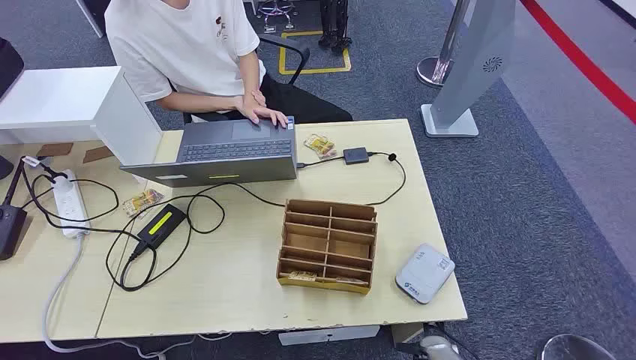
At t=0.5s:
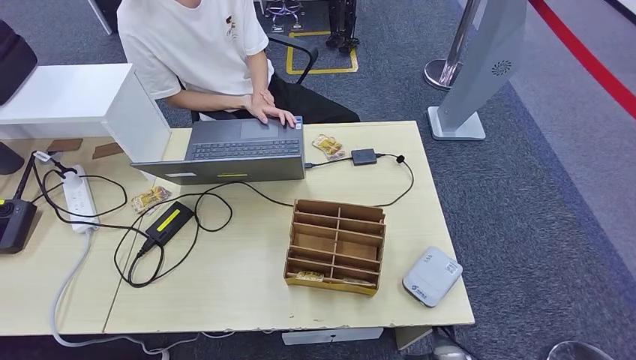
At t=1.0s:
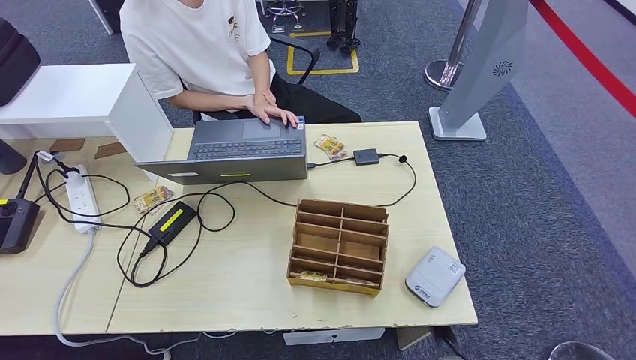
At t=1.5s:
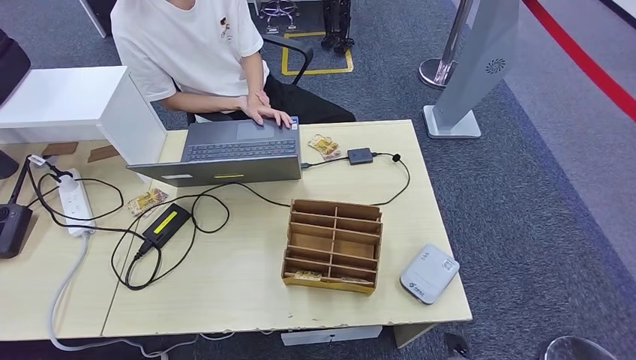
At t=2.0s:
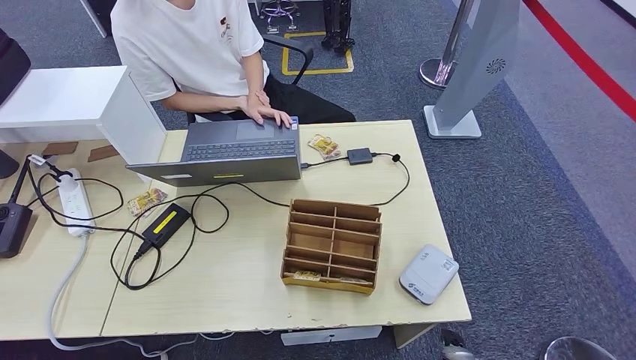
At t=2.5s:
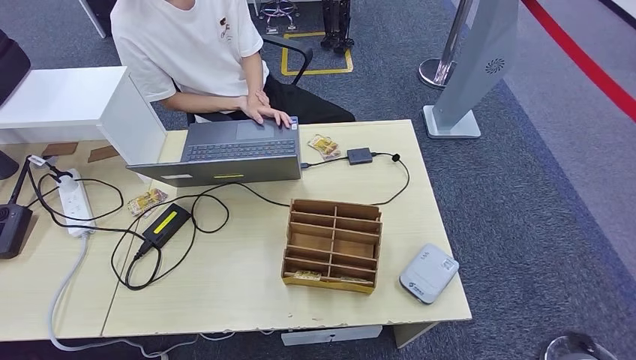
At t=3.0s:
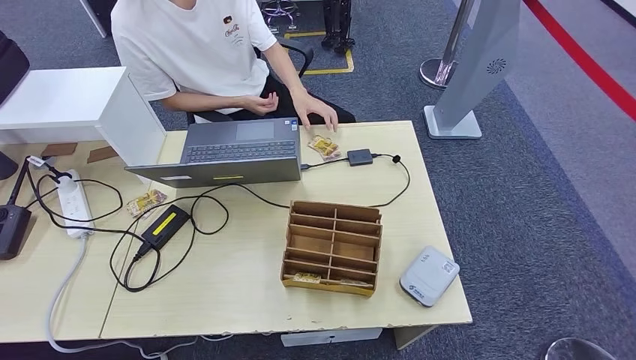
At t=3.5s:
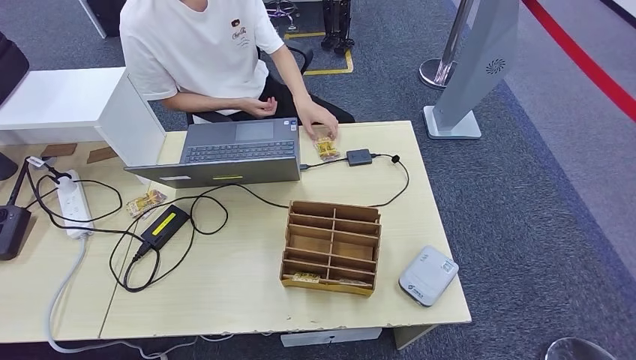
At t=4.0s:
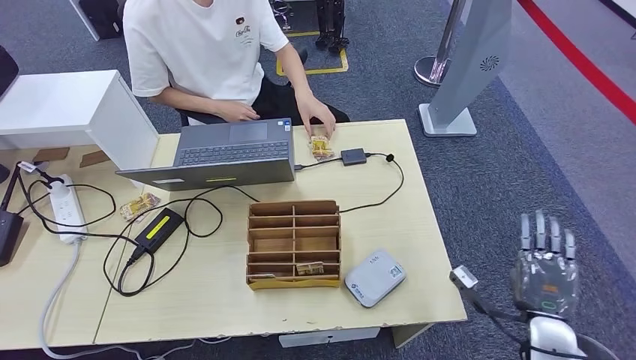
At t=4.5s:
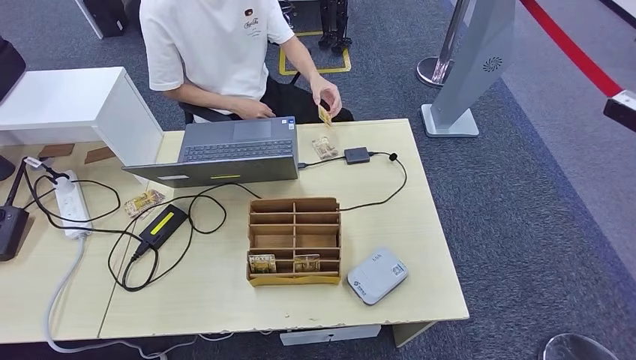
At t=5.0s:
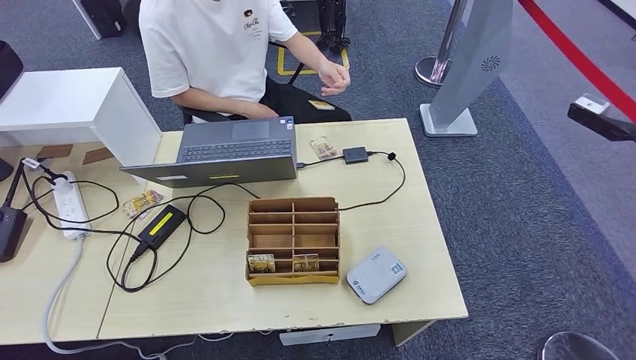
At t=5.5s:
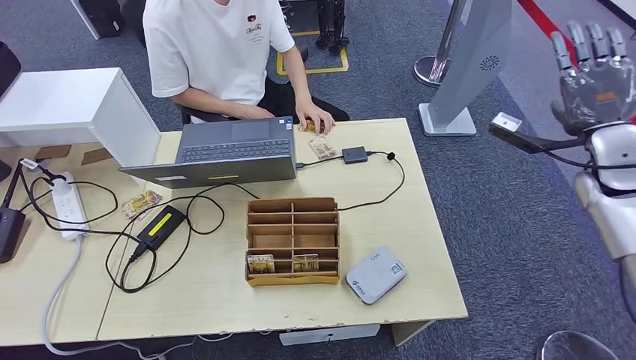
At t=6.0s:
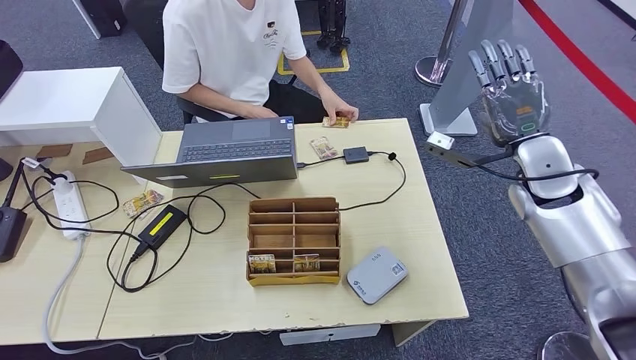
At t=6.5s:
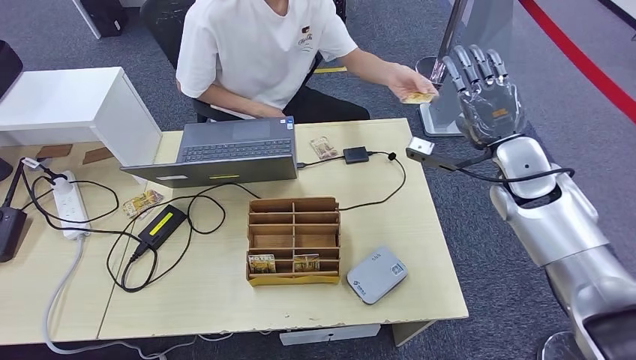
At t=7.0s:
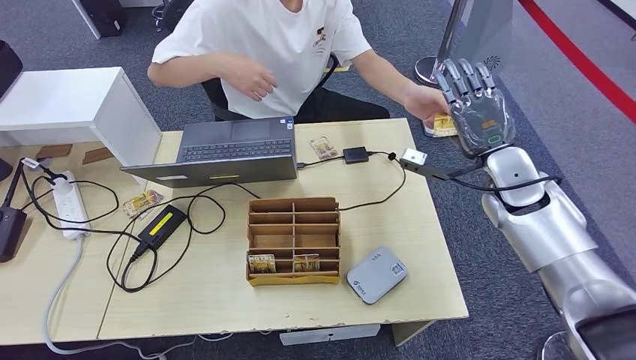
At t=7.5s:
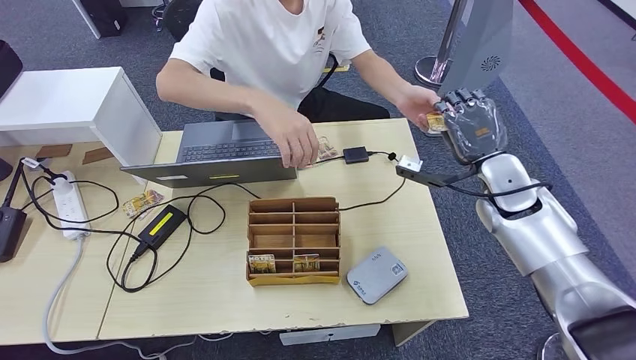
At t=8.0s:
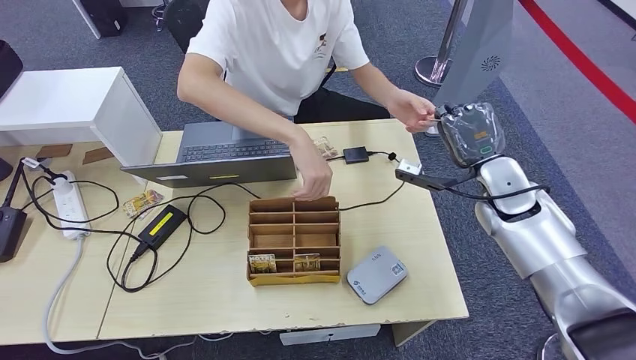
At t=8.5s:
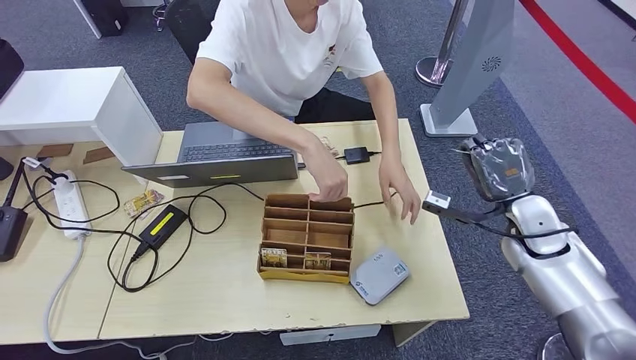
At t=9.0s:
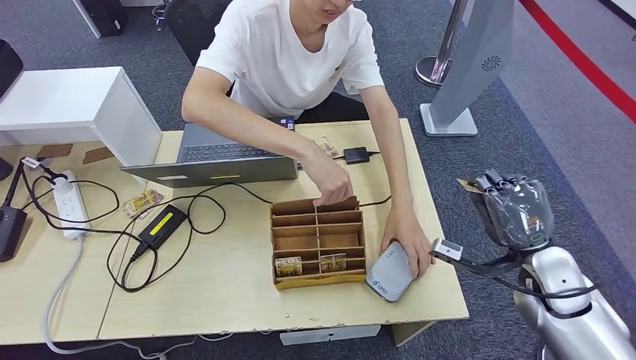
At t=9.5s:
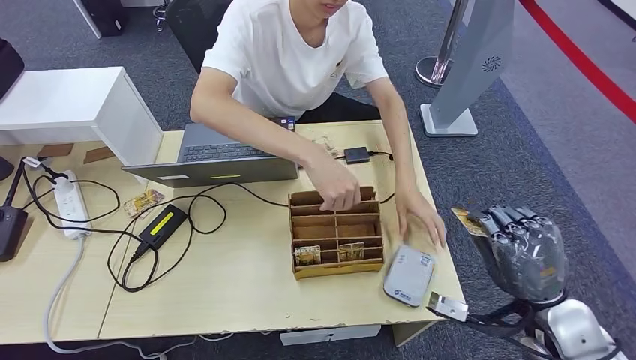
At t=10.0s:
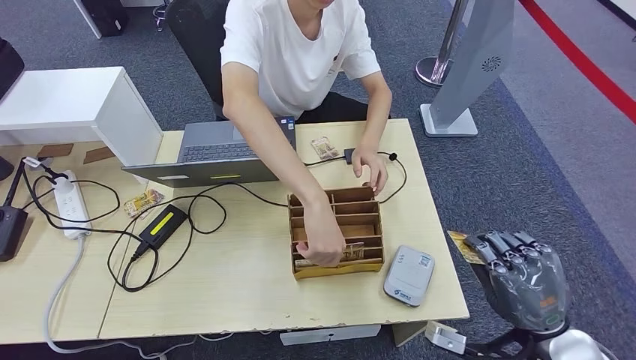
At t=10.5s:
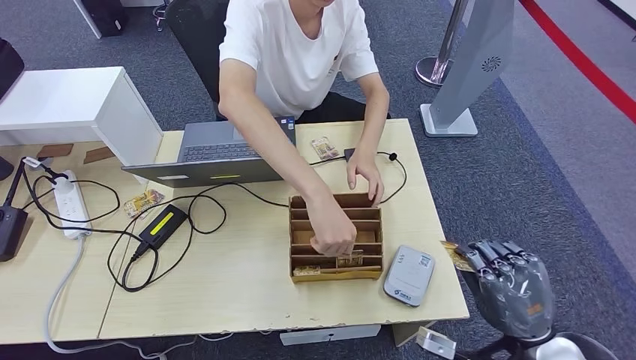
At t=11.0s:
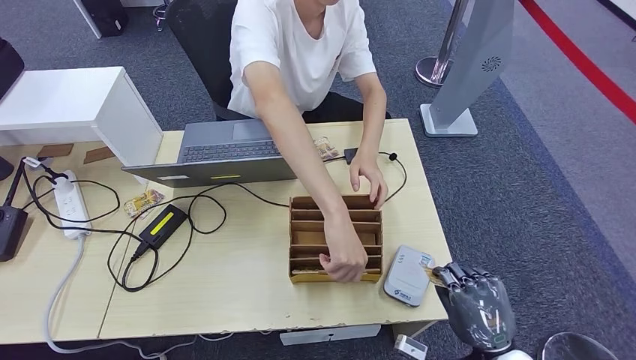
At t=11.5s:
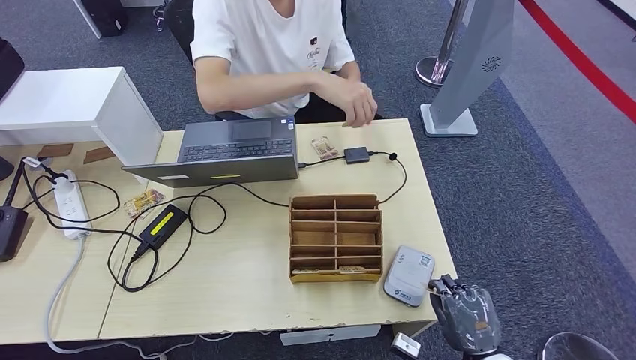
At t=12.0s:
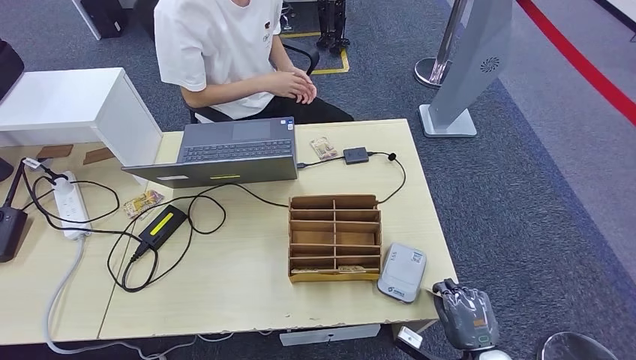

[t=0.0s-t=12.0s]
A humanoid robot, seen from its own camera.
Step, t=0.0s to t=7.5s: Take the ID card from the person's hand.

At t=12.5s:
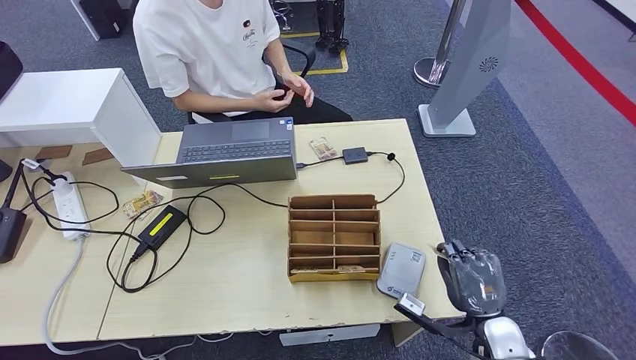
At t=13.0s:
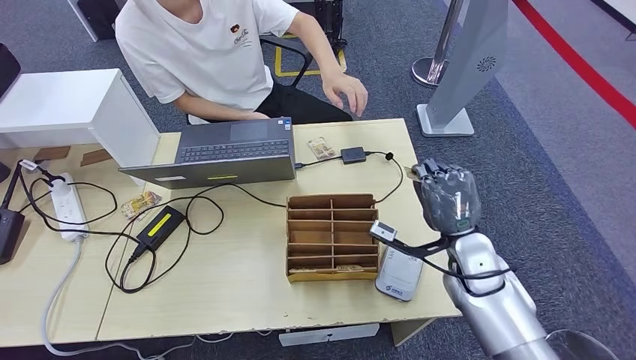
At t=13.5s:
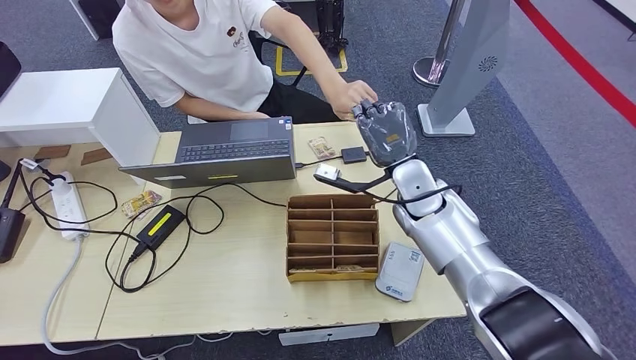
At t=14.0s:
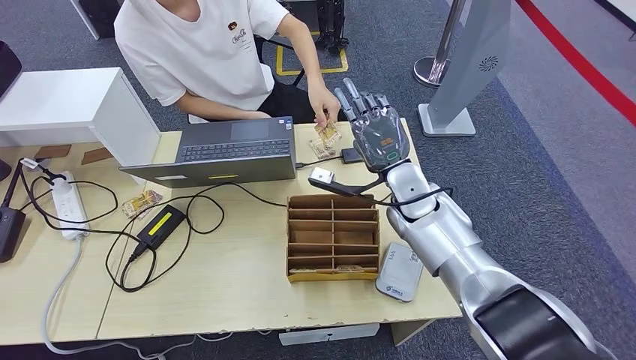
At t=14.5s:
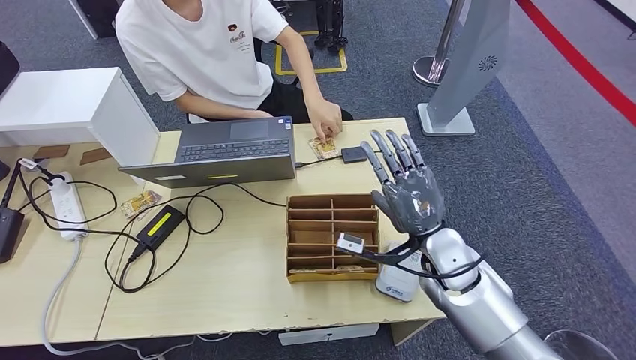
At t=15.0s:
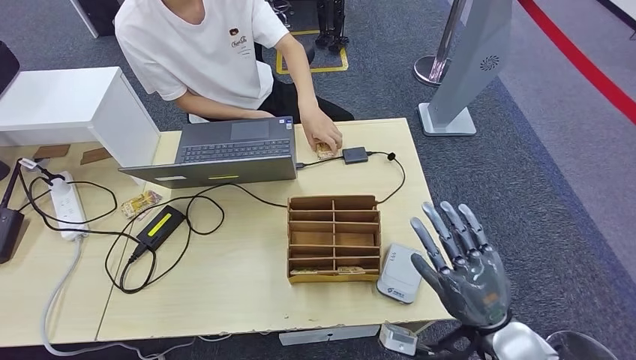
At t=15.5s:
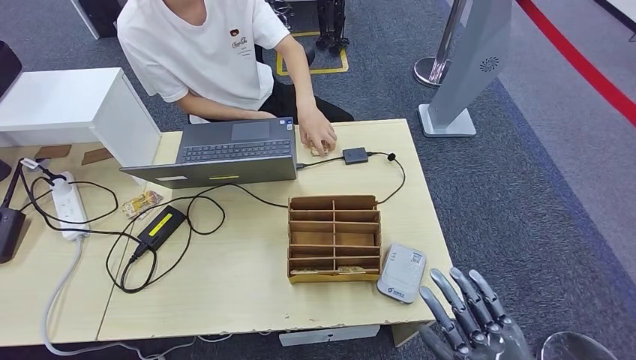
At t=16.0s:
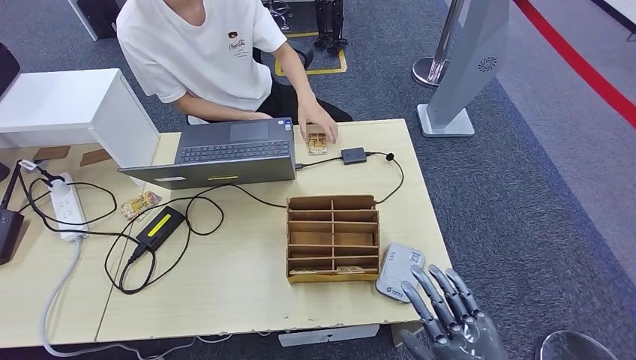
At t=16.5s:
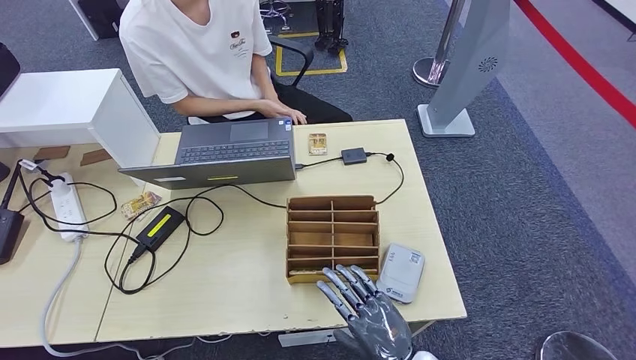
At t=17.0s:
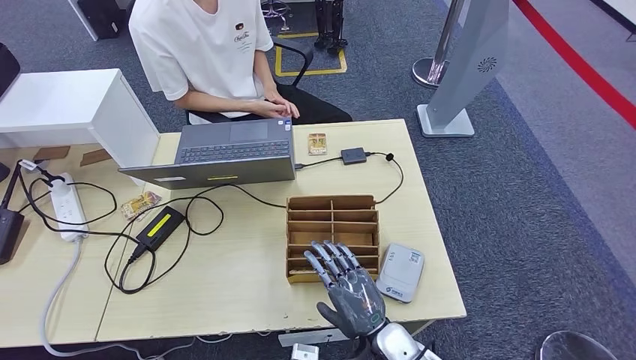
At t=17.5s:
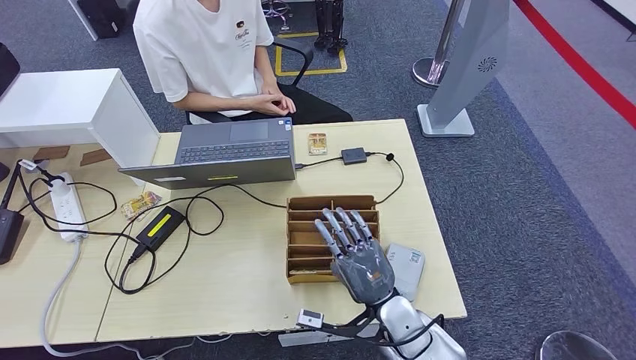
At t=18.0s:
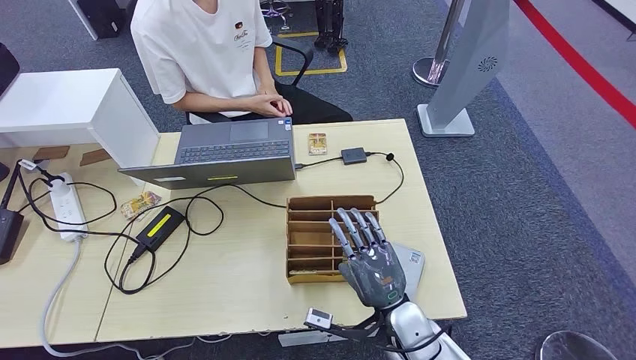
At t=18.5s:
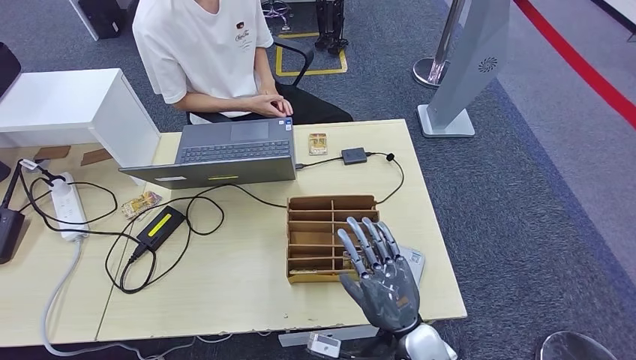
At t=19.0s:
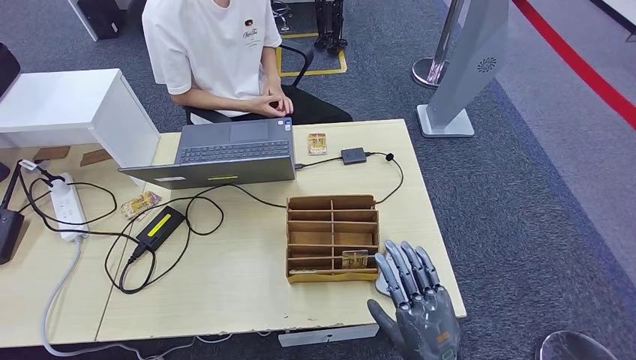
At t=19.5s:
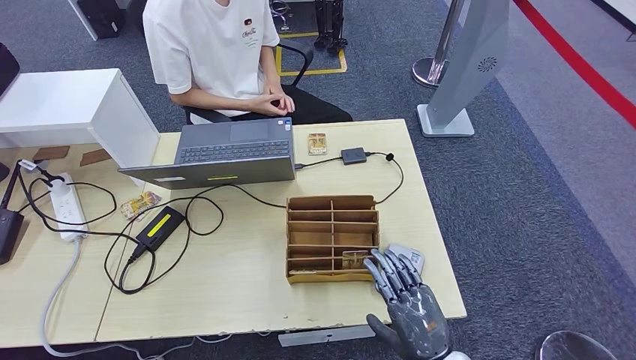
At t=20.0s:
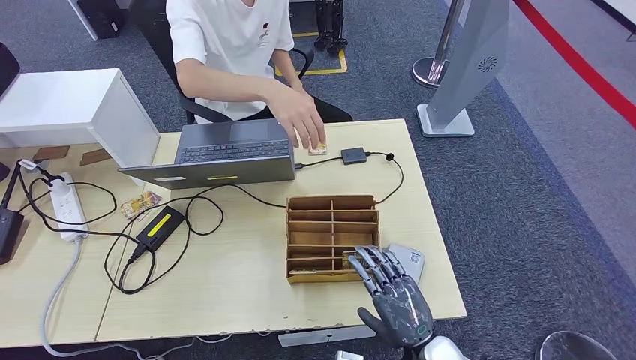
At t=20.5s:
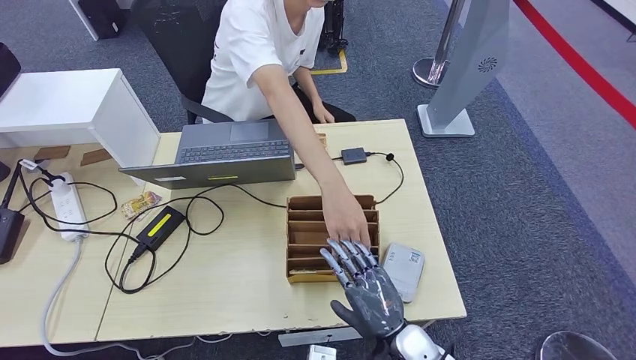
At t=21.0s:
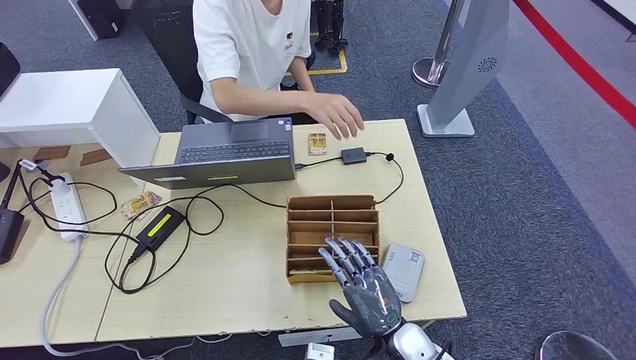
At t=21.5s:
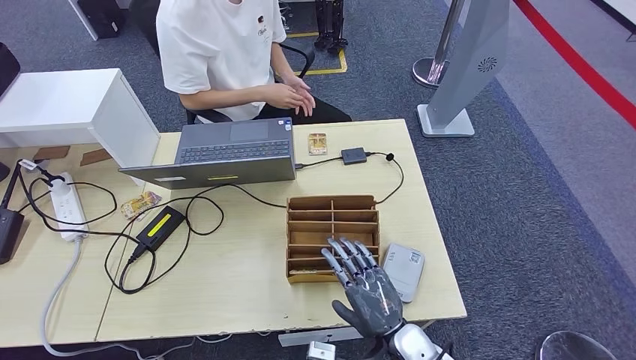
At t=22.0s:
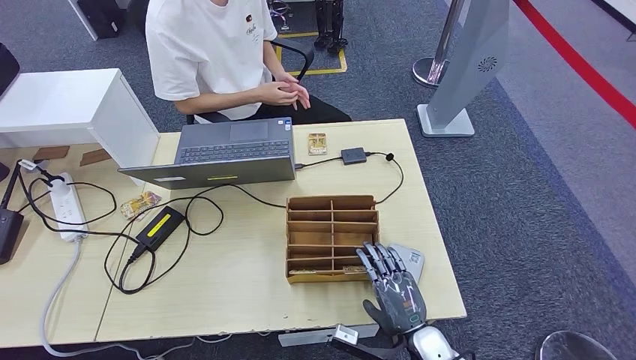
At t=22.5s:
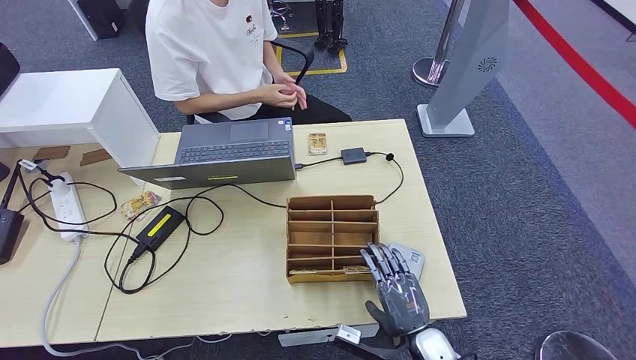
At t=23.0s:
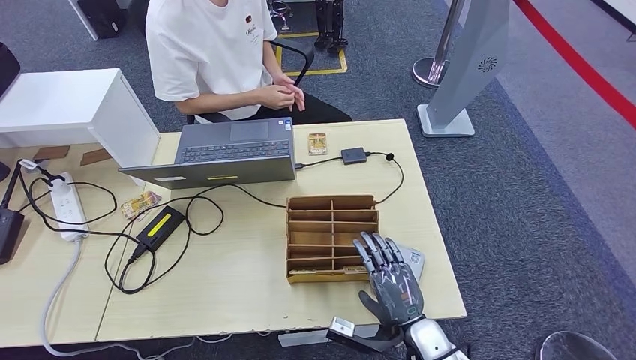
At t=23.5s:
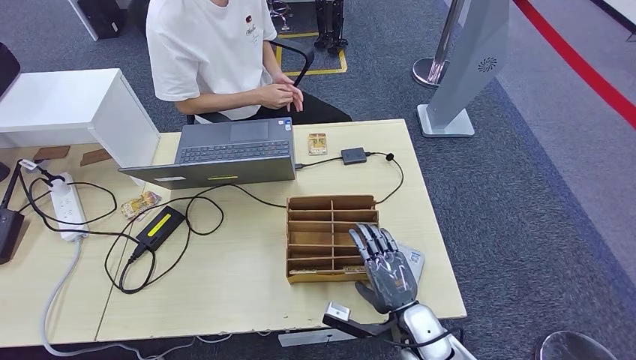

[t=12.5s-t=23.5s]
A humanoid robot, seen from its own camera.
Step, t=13.0s to t=14.5s: Hand the ID card to the person.
t=12.5s to t=14.5s: The right hand travels forward, upward and to the left by roughly 20 cm.
t=14.5s to t=16.0s: The right hand moves backward, approximately 25 cm.
t=16.0s to t=18.0s: The right hand shifts approximately 20 cm forward, to the left and downward.
t=18.0s to t=20.0s: The right hand is displaced backward and to the right by roughly 10 cm.
t=20.0s to t=21.5s: The right hand moves approximately 5 cm.
